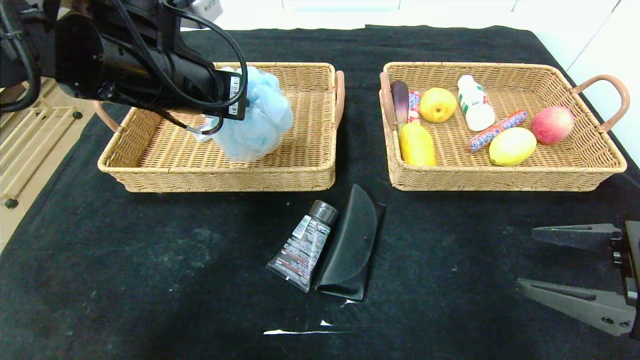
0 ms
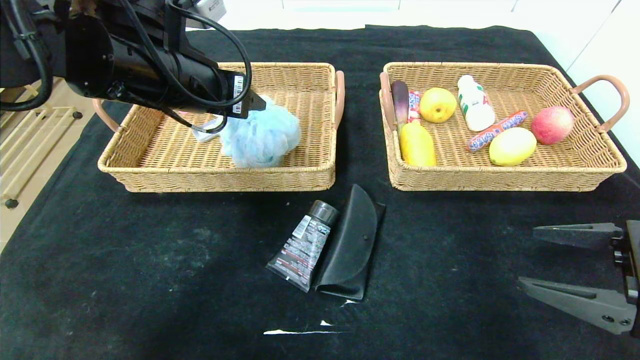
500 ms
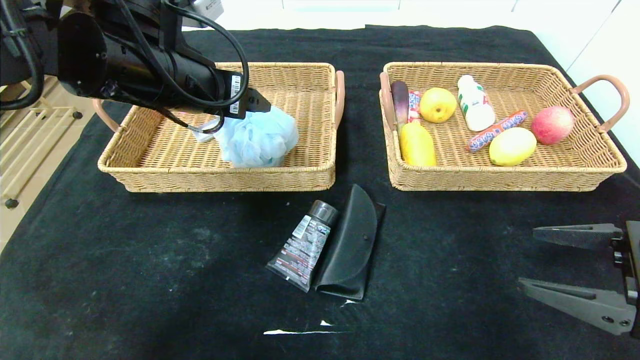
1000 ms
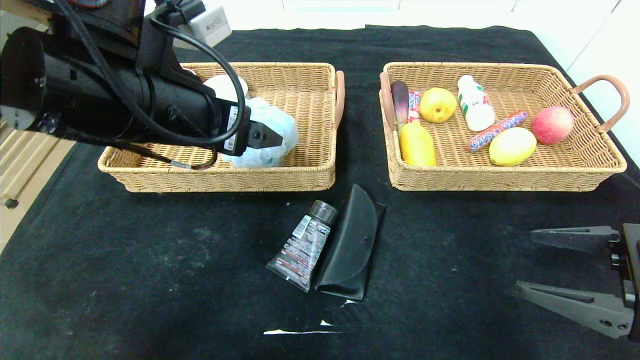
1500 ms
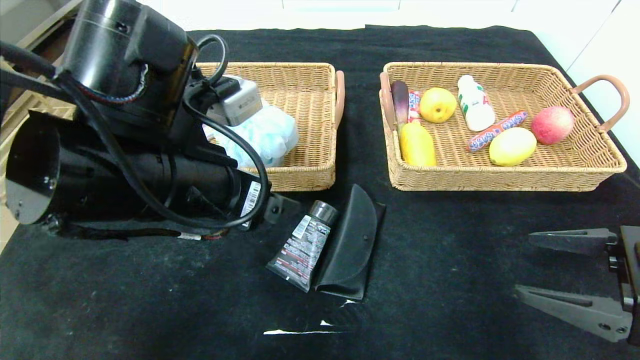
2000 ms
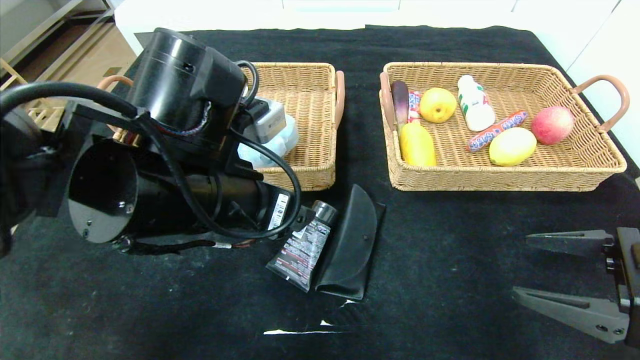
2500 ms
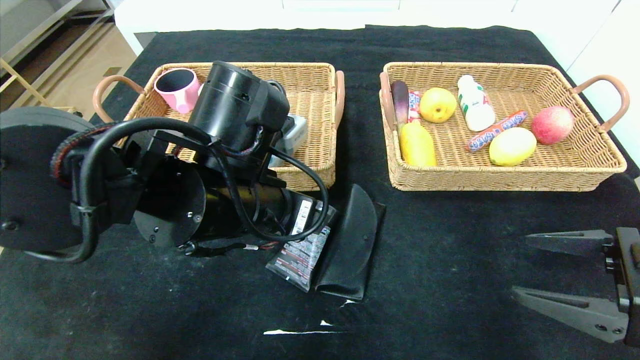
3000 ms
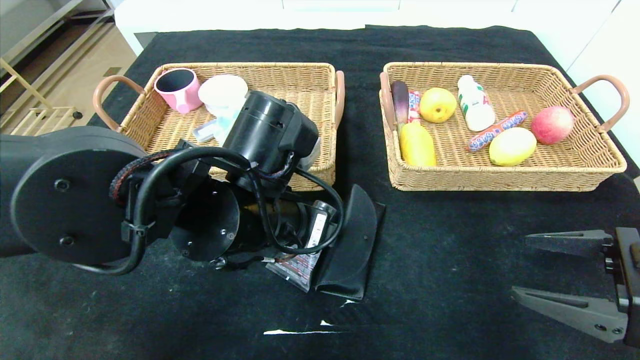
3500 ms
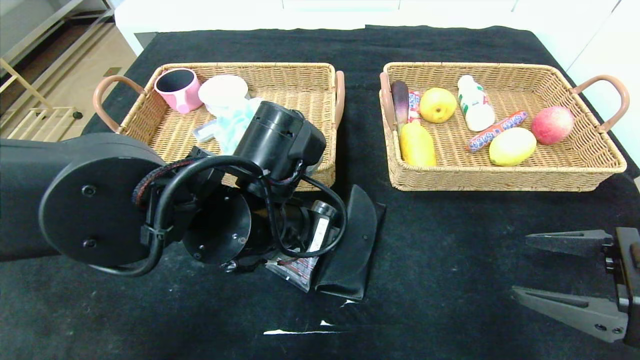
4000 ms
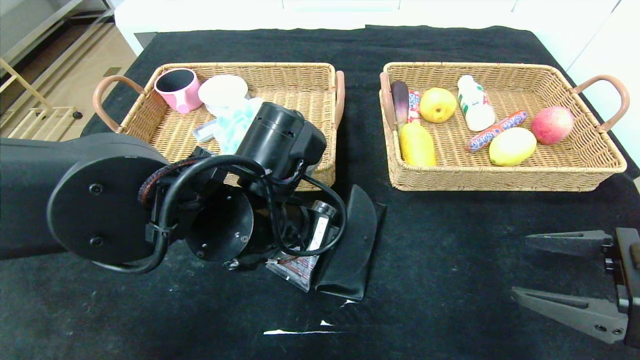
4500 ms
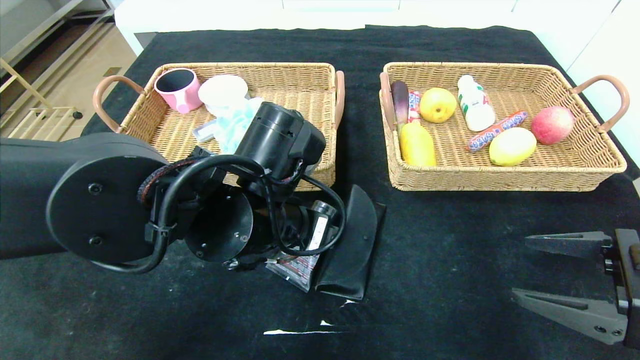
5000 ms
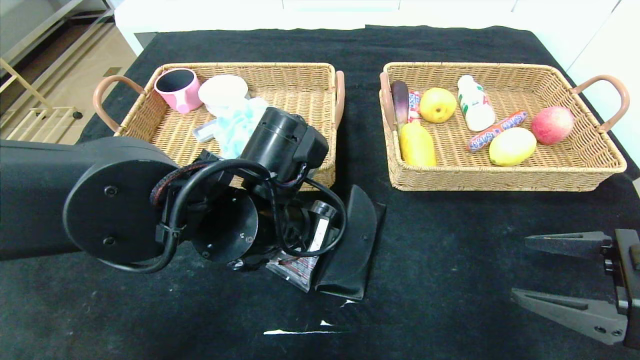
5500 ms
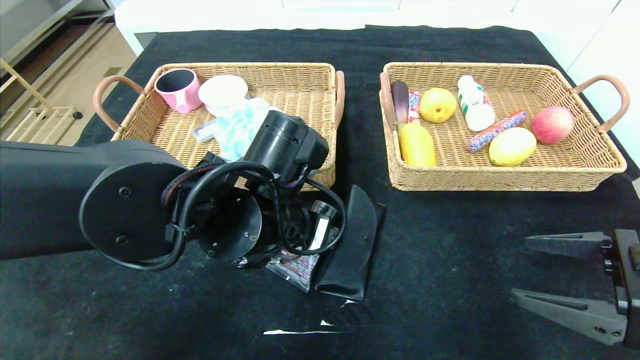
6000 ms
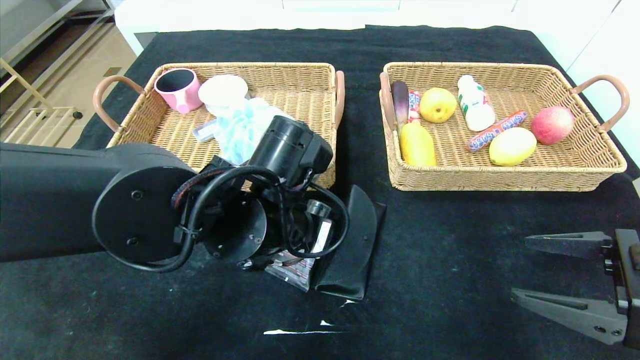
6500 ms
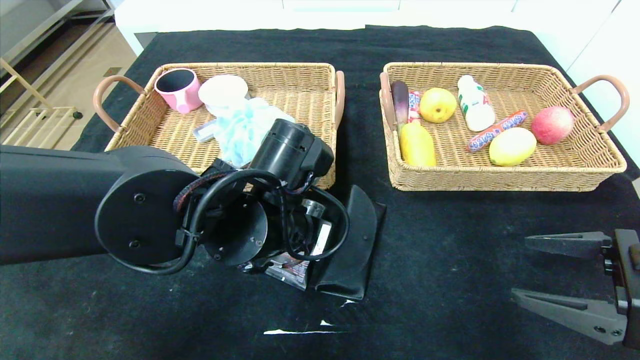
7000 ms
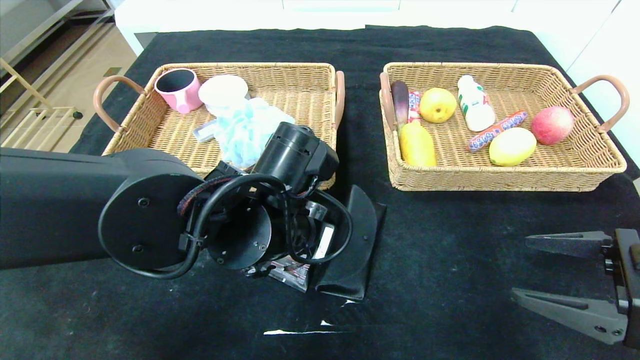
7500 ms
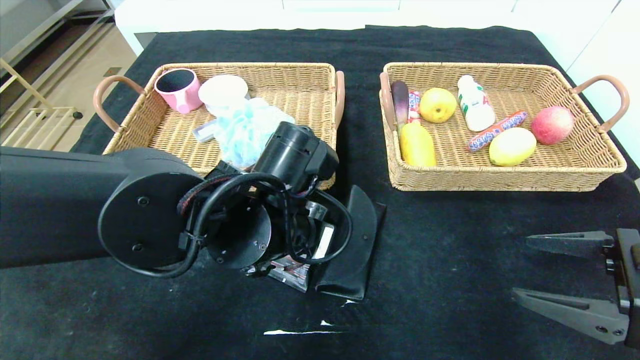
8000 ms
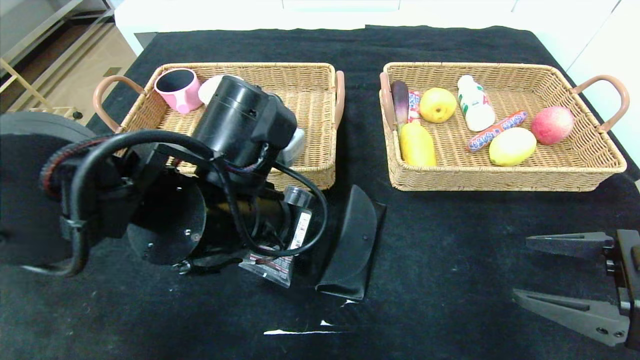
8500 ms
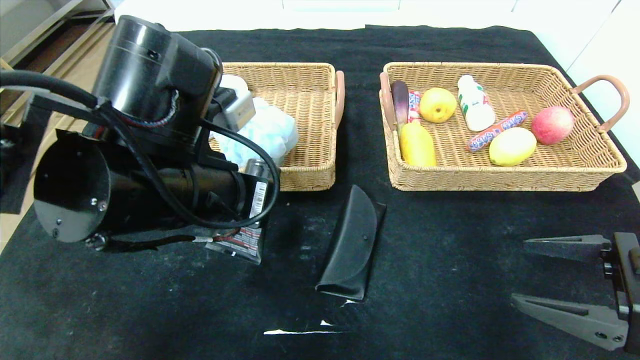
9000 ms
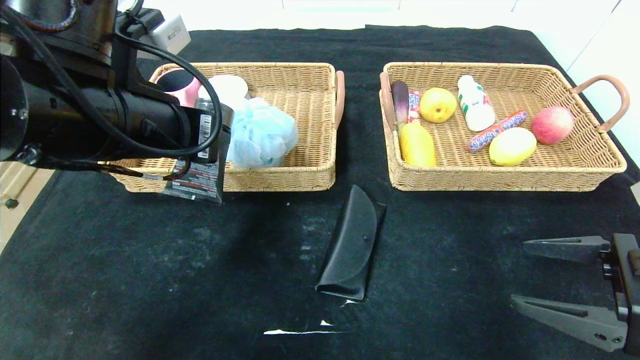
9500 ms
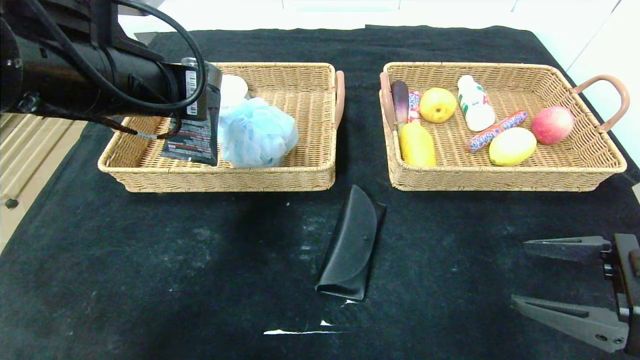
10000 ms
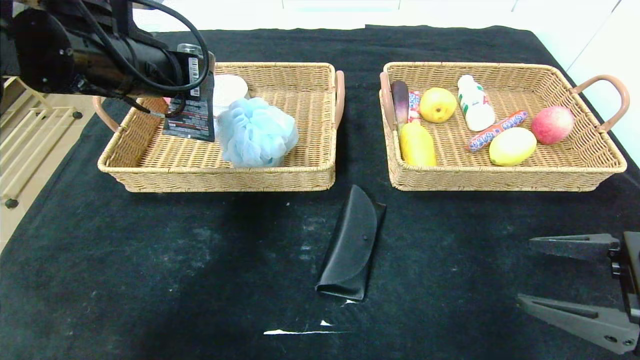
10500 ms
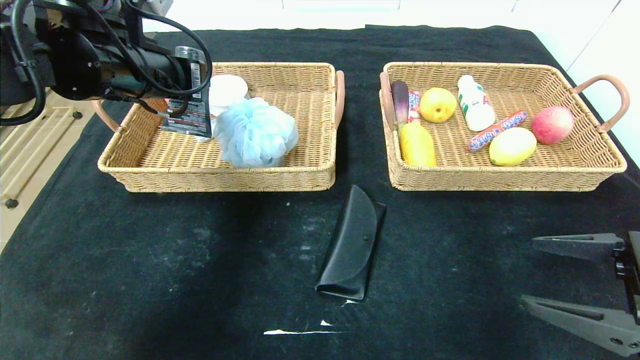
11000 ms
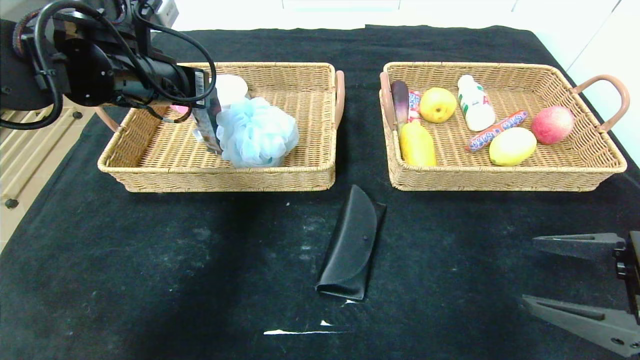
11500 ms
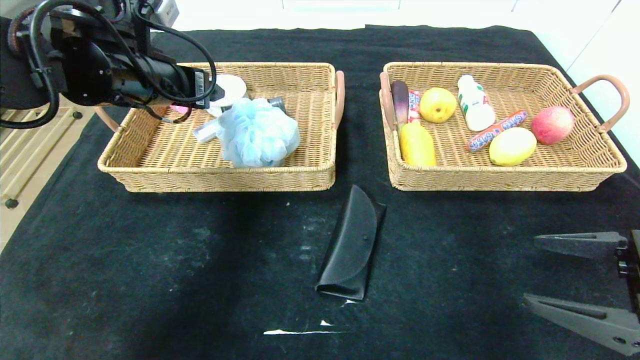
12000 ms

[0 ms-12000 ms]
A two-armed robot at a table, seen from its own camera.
Step, 1000 ms to 11500 ms: Grasp the soft cleanser and put it in the left basket.
0 ms to 2000 ms: The left gripper shifts roughly 10 cm backward and downward, and opens up.
2000 ms to 4000 ms: The left gripper travels to the right and downward by some 10 cm.
4000 ms to 6000 ms: The grippers make only small movements.
6000 ms to 8000 ms: The left gripper closes its fingers.
8000 ms to 10000 ms: The left gripper shifts approximately 20 cm upward and to the left.
10000 ms to 12000 ms: The left gripper heads forward, covering some 10 cm, and opens.

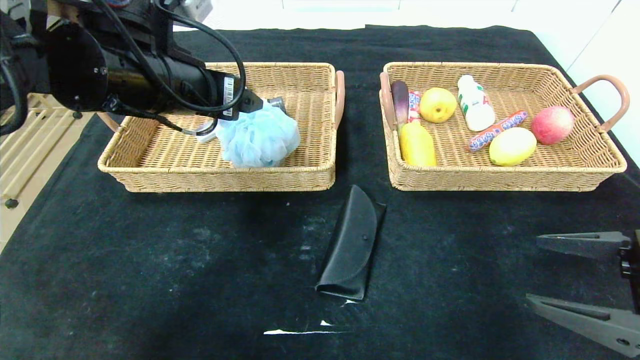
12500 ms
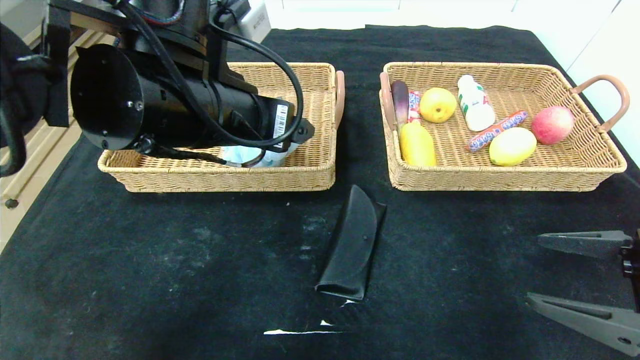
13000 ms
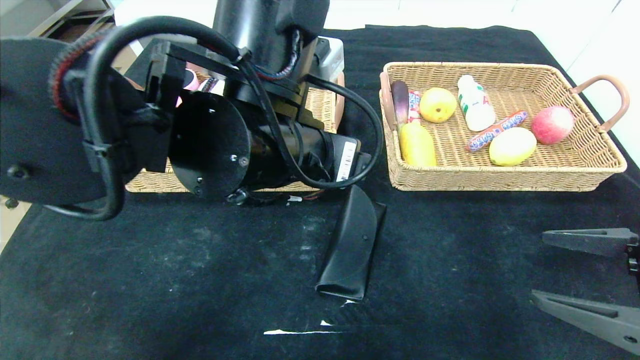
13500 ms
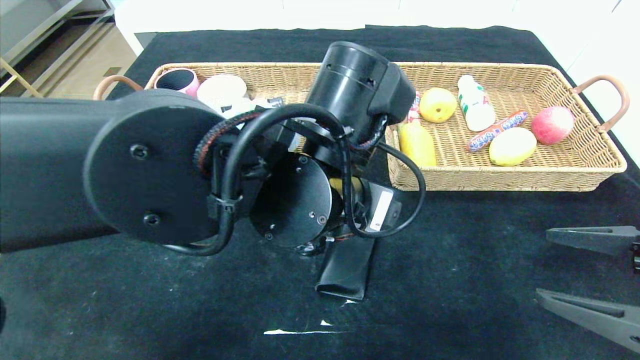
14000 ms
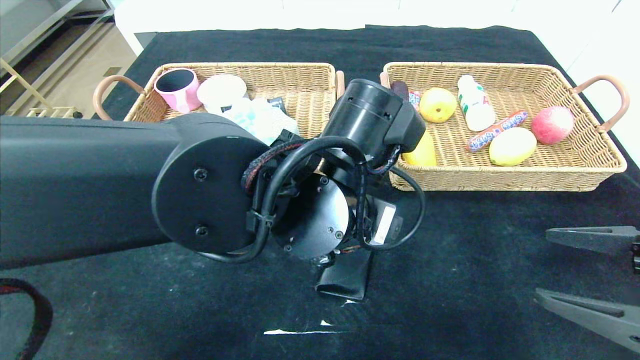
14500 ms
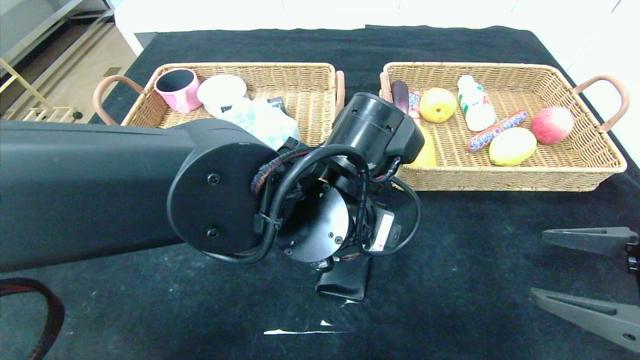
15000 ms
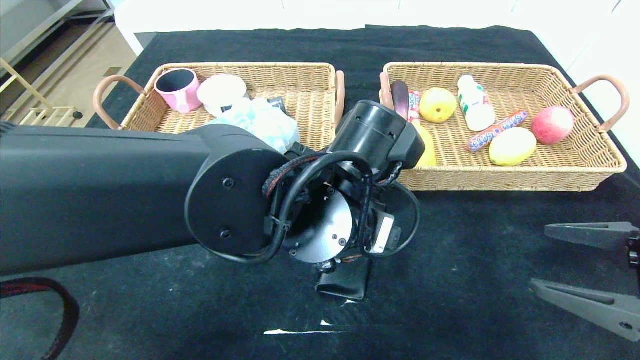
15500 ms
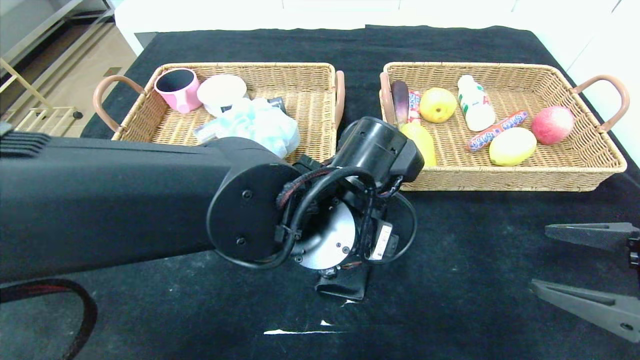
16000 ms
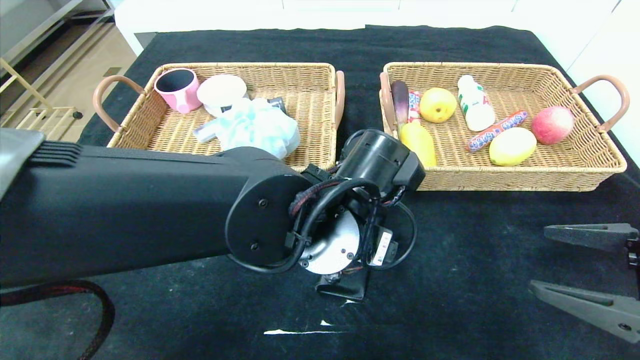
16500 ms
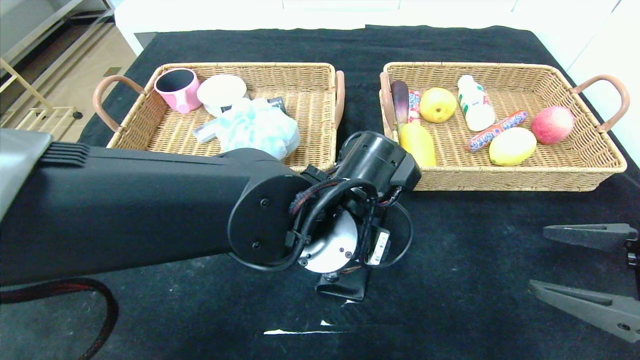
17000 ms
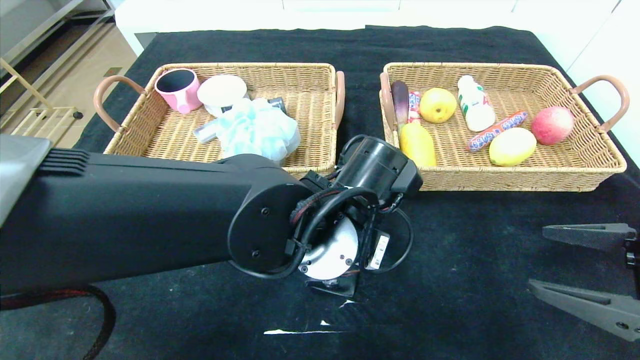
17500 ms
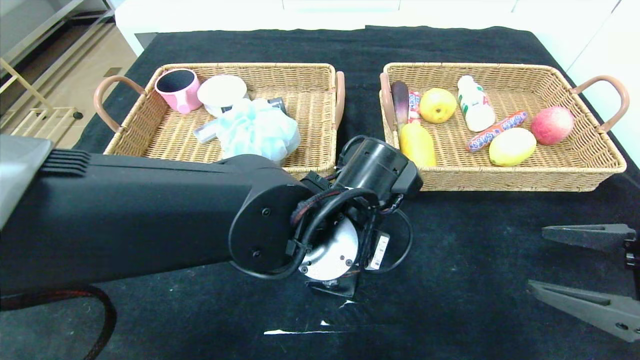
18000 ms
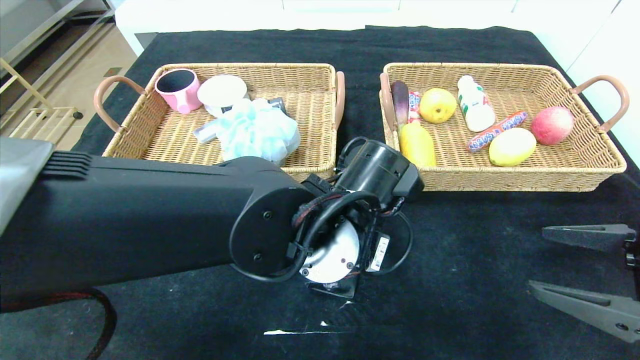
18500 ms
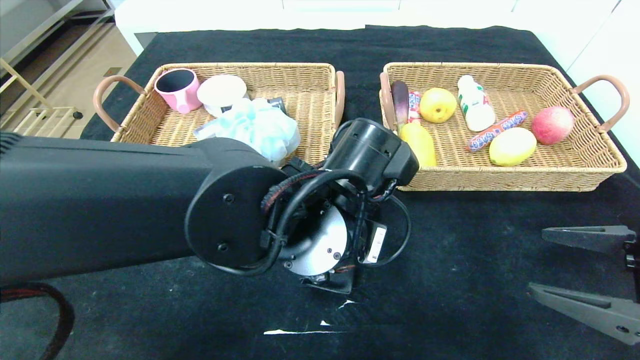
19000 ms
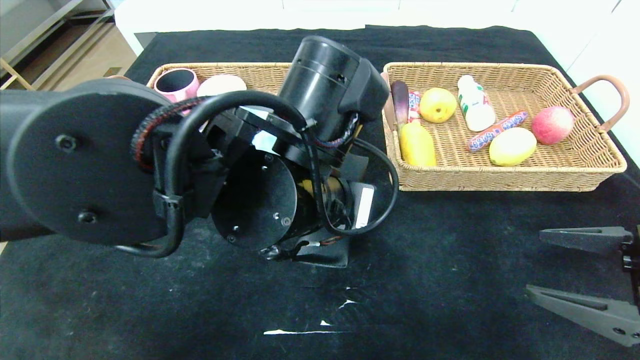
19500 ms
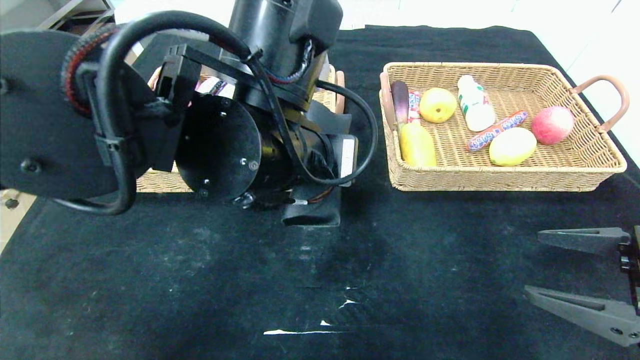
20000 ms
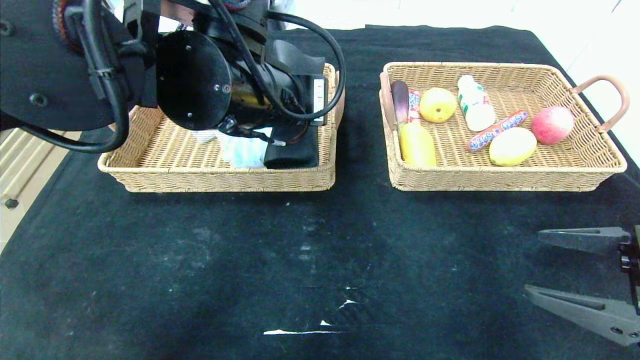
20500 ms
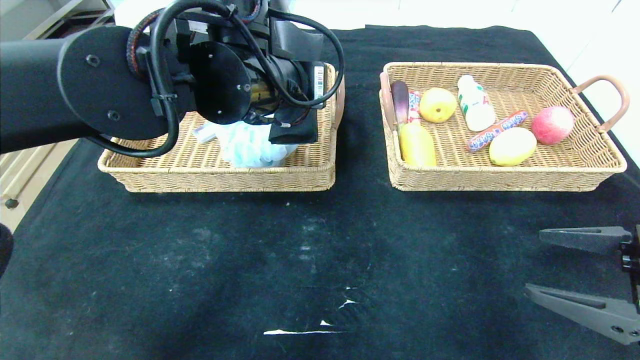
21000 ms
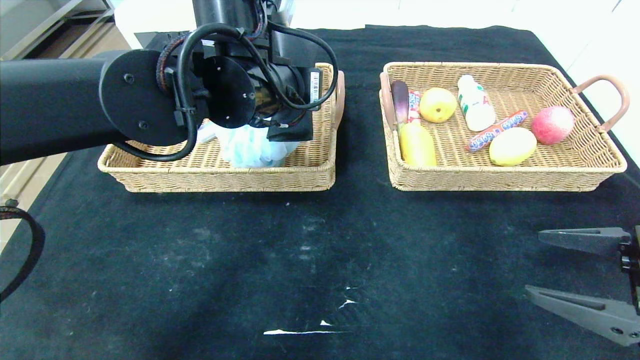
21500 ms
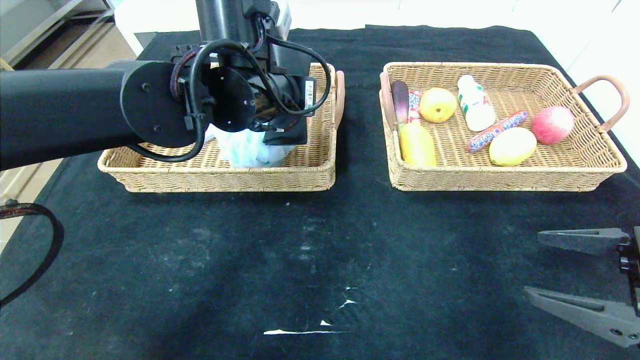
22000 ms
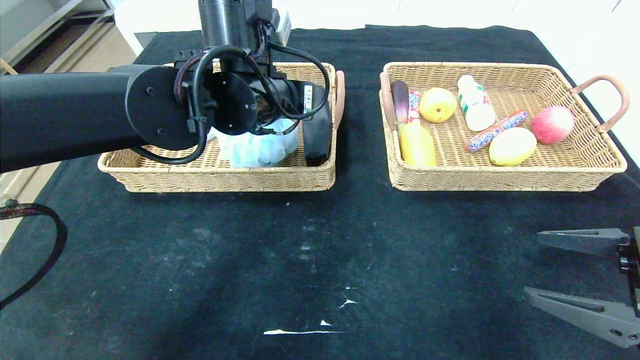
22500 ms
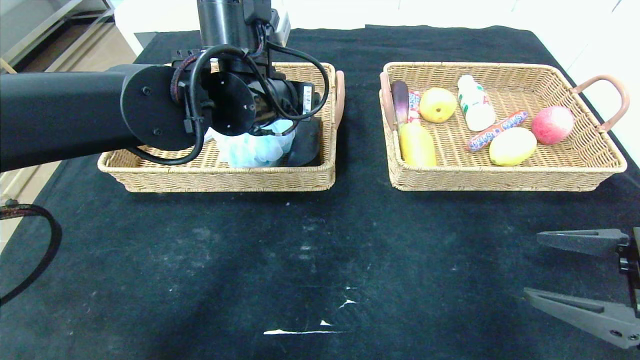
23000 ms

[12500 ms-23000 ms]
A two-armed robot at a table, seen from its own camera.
Step, 12500 ms to 22500 ms: Grasp the glasses case and put it in the left basket.
12500 ms to 14500 ms: The left gripper travels to the right and downward by roughly 20 cm.
16500 ms to 19000 ms: The left gripper closes.
19000 ms to 21000 ms: The left gripper heads upward, forward and to the left, covering roughly 15 cm.
21000 ms to 23000 ms: The left gripper opens its fingers.
